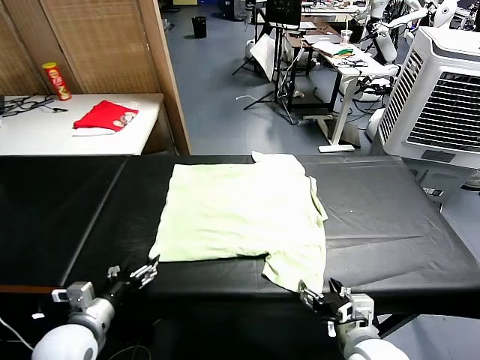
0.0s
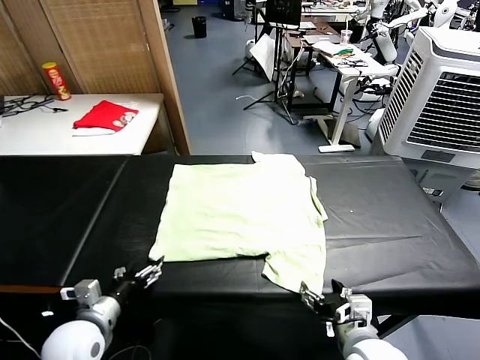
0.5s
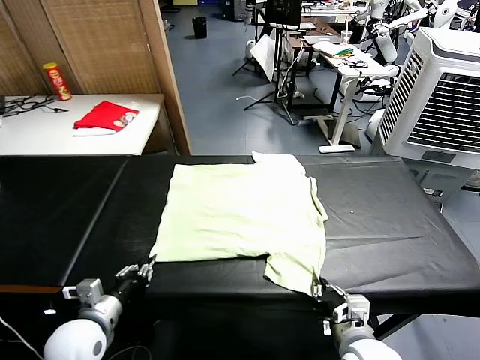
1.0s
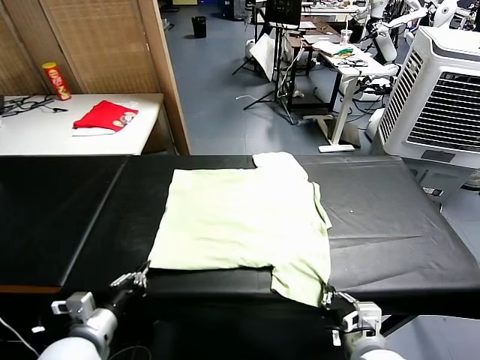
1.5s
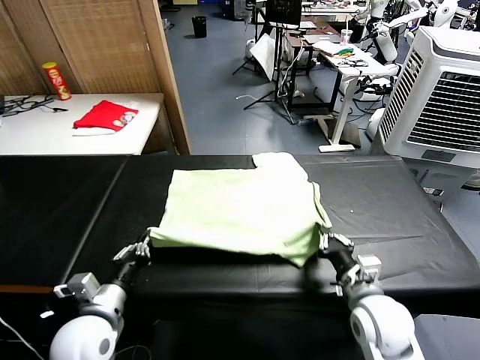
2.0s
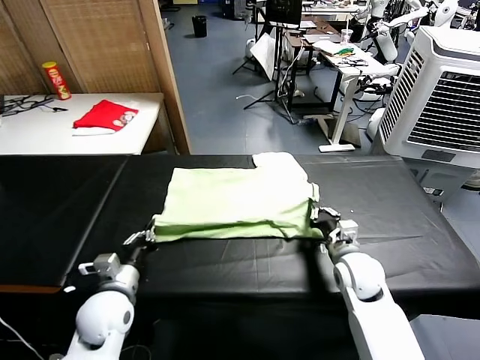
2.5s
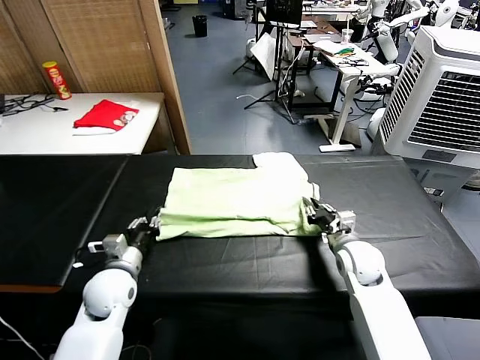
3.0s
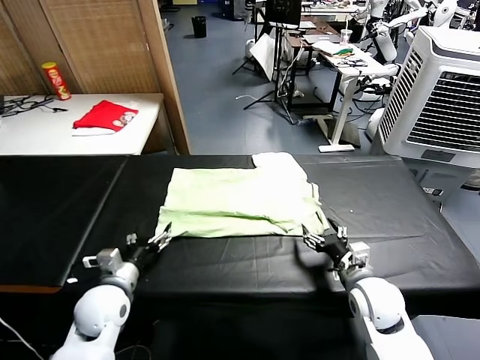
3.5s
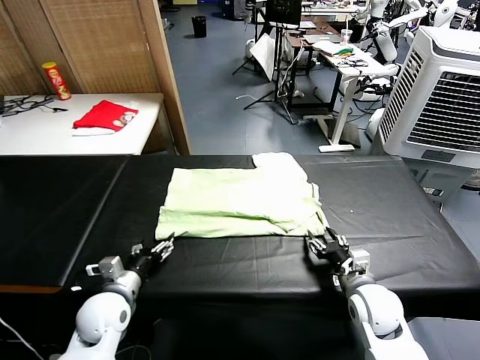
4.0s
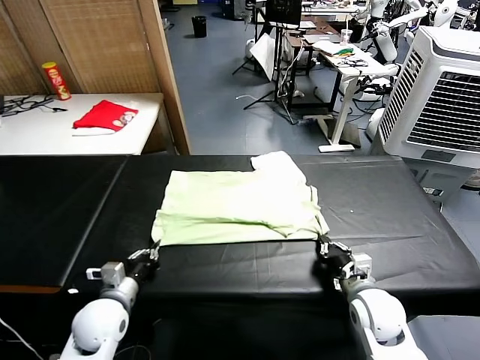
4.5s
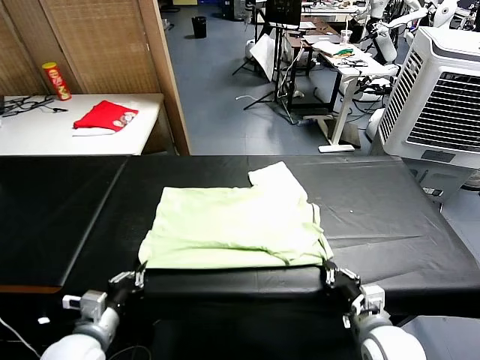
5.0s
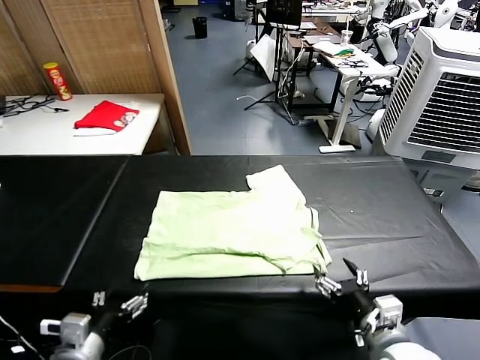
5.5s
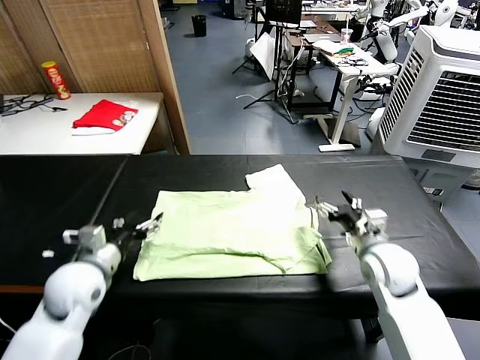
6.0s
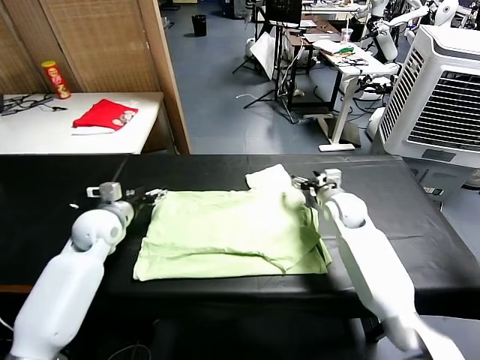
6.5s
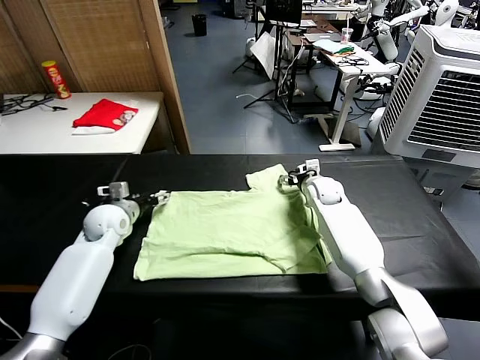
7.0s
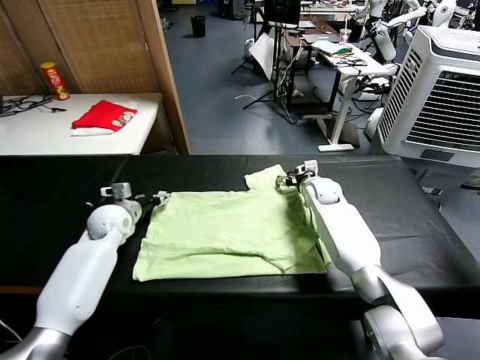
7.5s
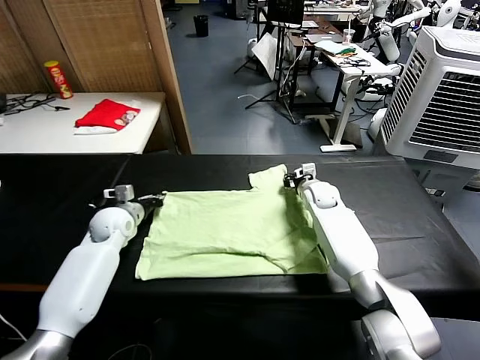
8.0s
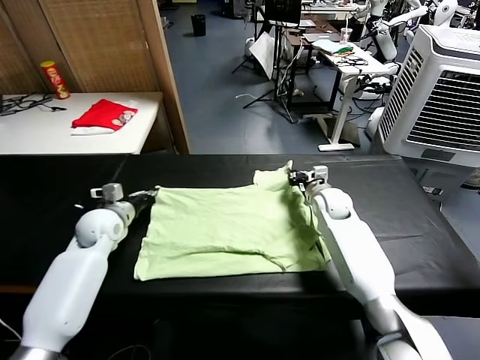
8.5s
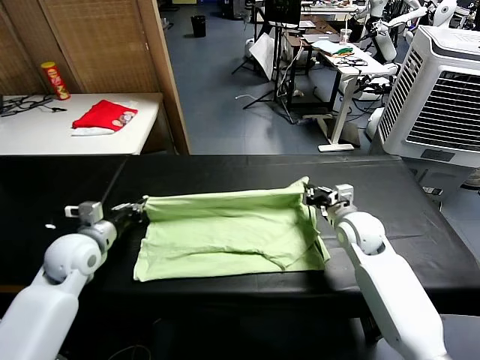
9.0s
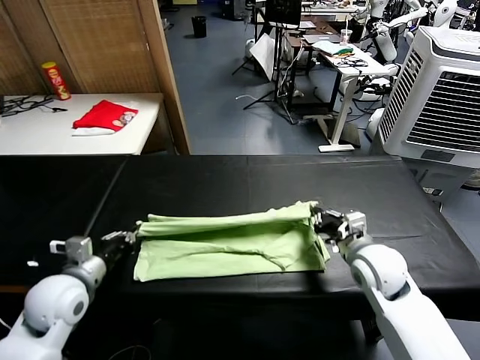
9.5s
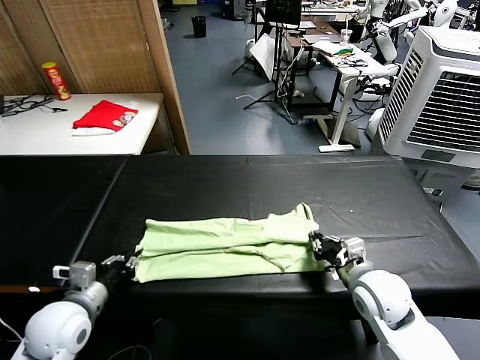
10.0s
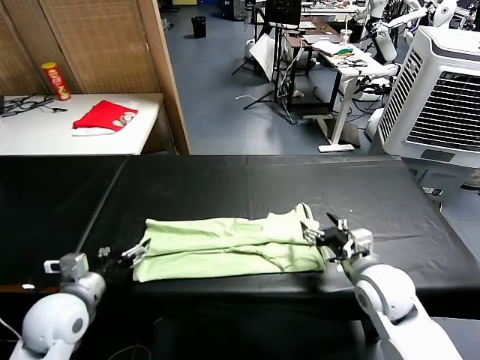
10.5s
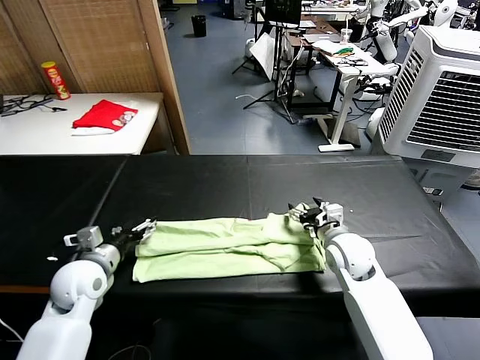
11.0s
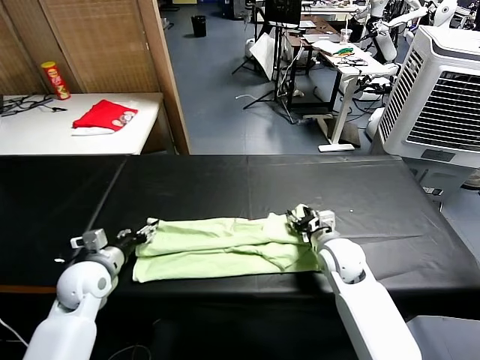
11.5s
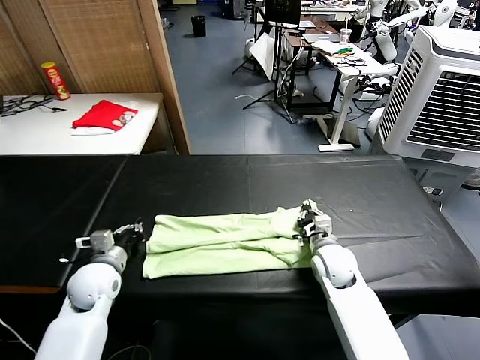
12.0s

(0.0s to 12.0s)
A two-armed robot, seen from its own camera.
Task of the whole recording: fold and organize the clothes.
Step, 0.0s - 1.0s: use both grippers simultaneously to clamp the lower edge of the clothing fabric.
Step, 1.5s - 3.0s: use both grippers to drag the lower edge of the fabric forward and fold it over the upper edge.
Step, 3.5s - 5.5s: Drag the clothes downward with both gripper.
Step, 6.0s - 7.5s: use both grippers simultaneously to clamp the upper edge of the clothing fabric.
Step, 8.0s - 10.0s: use both grippers to drag the upper edge of the fabric backward and fold it over the lower edge.
2.0s - 4.0s: The left gripper heads downward and forward, covering approximately 10 cm, and opens its fingers. Meanwhile the right gripper travels forward and back again, roughly 10 cm each way, and opens and closes again.
4.0s - 6.0s: The left gripper heads upward, covering approximately 10 cm, moves about 15 cm backward and comes back, and closes and opens again. The right gripper travels forward and upward by about 15 cm, and opens up.
6.0s - 8.0s: The left gripper moves forward, roughly 15 cm, and closes its fingers, while the right gripper heads forward and downward, covering about 15 cm, and closes up.
8.0s - 10.0s: Both grippers travel together backward, about 25 cm. The right gripper opens its fingers.
10.0s - 12.0s: The left gripper goes about 10 cm forward, and opens, then closes again; the right gripper is displaced forward, downward and to the left by roughly 15 cm, and closes.

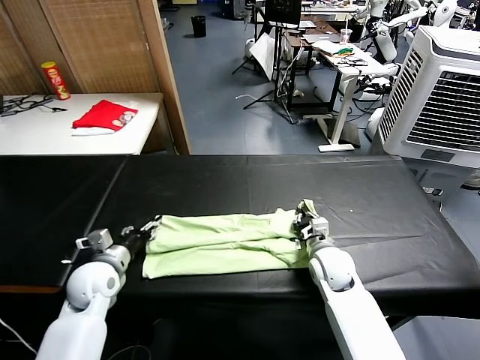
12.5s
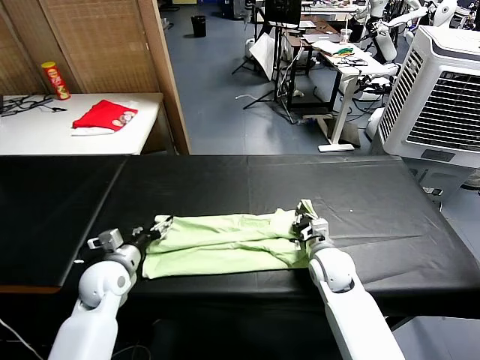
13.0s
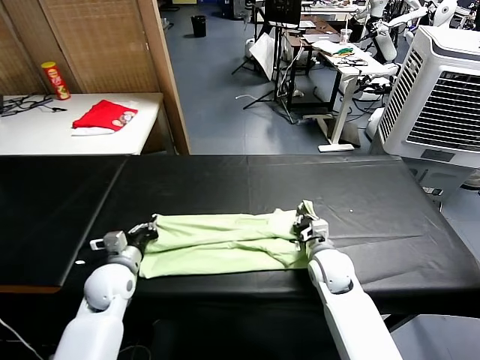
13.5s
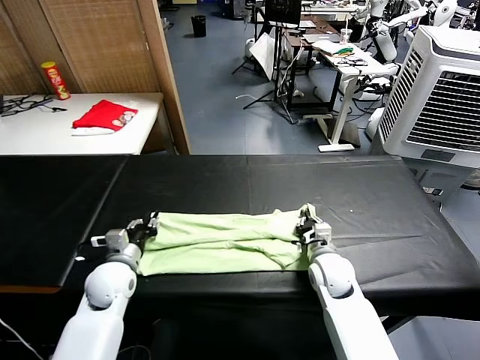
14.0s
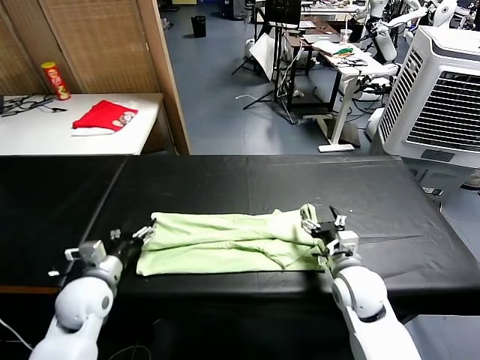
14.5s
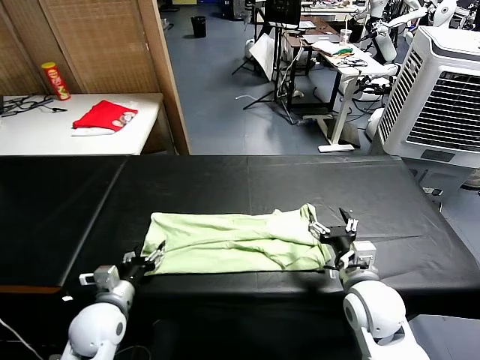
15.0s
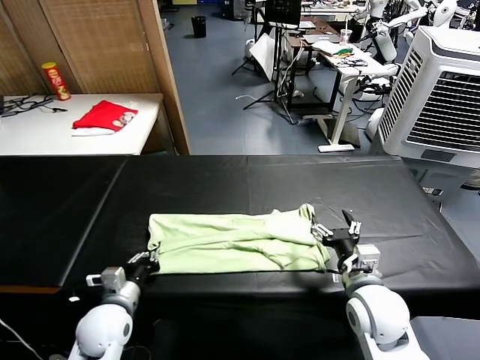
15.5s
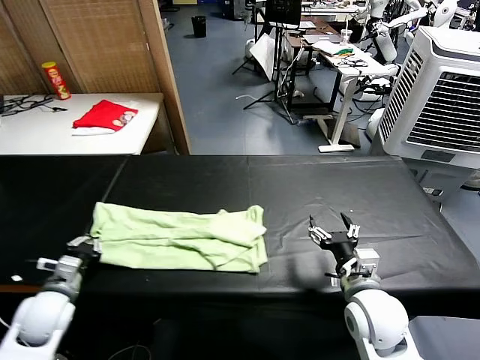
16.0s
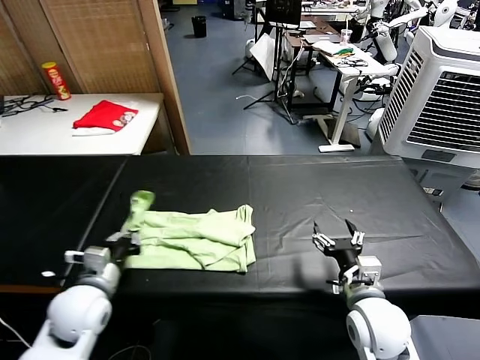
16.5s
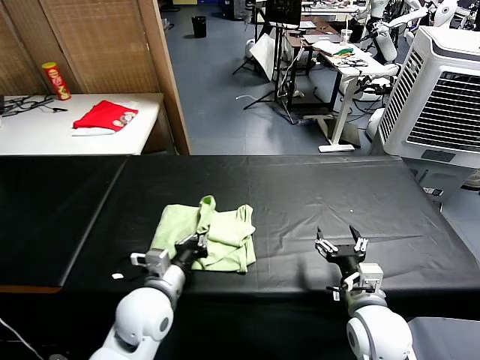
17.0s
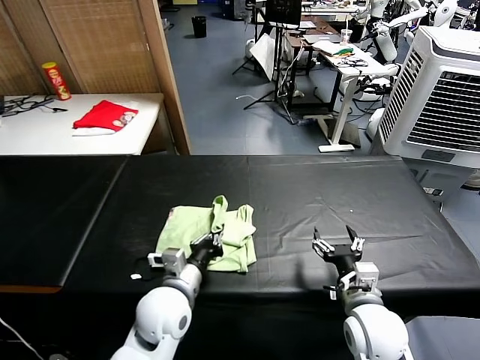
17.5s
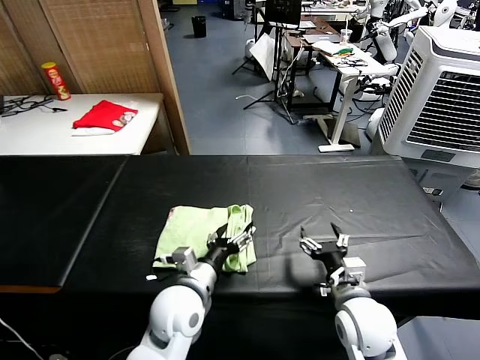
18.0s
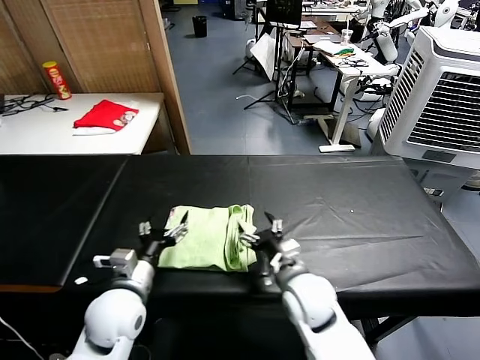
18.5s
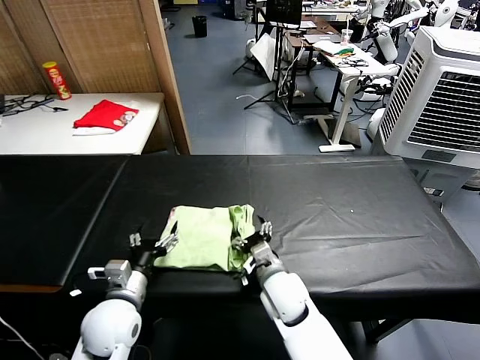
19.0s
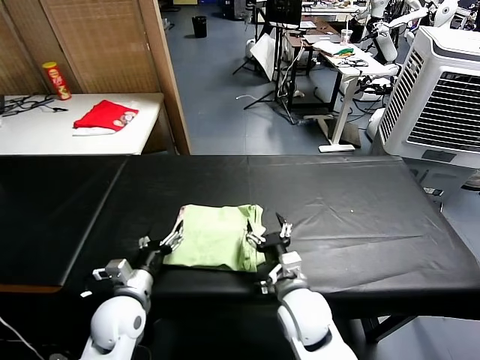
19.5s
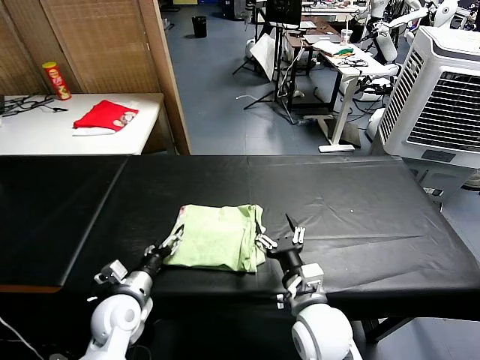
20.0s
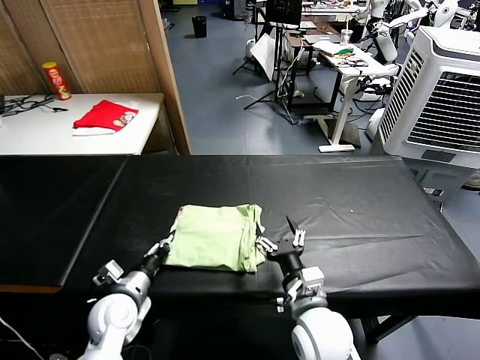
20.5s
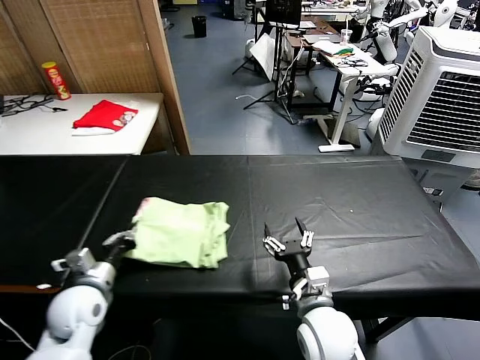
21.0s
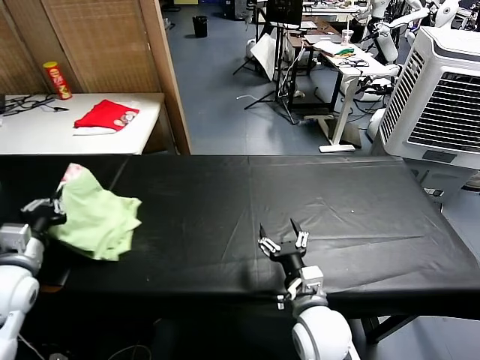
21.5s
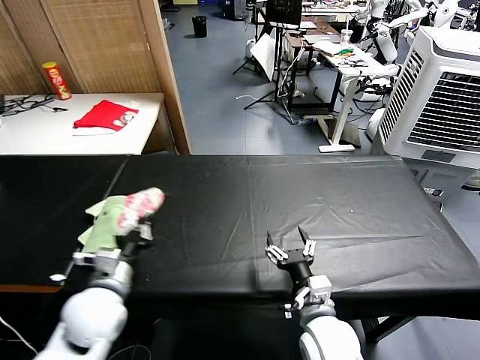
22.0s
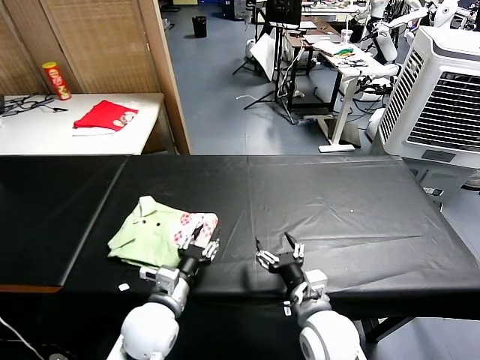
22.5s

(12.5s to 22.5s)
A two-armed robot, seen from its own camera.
Task of the whole recording: fold and organize the clothes.
Step, 12.5s - 15.0s: use the left gripper to clamp the left edge of the fabric.
Step, 16.0s - 17.5s: use the left gripper to drag the left edge of the fabric to the left and folds it over the right edge.
Step, 18.5s - 22.5s: Flip the folded clothes over with left gripper.
12.5s - 14.5s: The left gripper closes, then reopens. The right gripper travels backward and upward by approximately 10 cm, and opens up.
14.5s - 16.5s: The left gripper goes left and right, about 10 cm each way, reversing 2 times, and closes up. The right gripper goes some 5 cm backward.
16.5s - 18.5s: The left gripper goes some 10 cm to the right, and opens its fingers; the right gripper is displaced to the left and forward by roughly 15 cm.
18.5s - 20.5s: The right gripper shifts about 10 cm backward, while the left gripper moves downward, approximately 10 cm, and closes its fingers.
20.5s - 22.5s: The left gripper goes roughly 10 cm to the right, and opens its fingers.

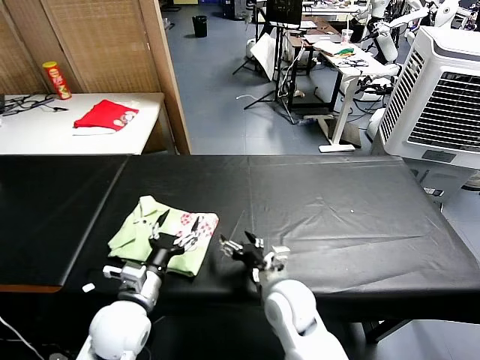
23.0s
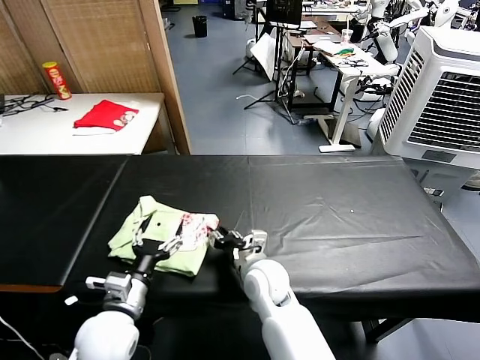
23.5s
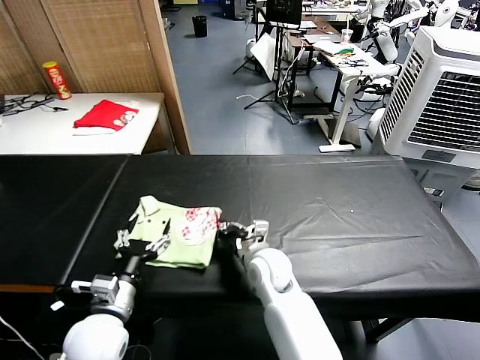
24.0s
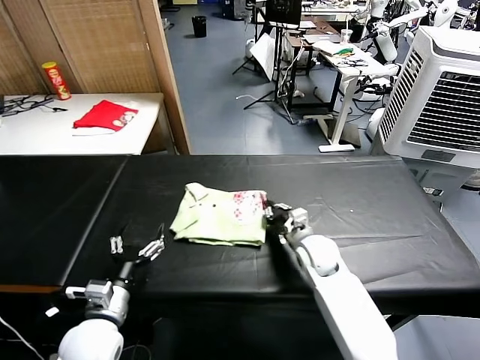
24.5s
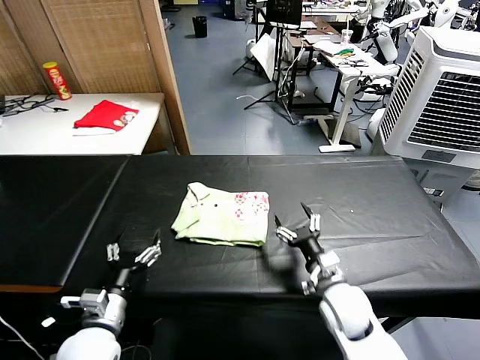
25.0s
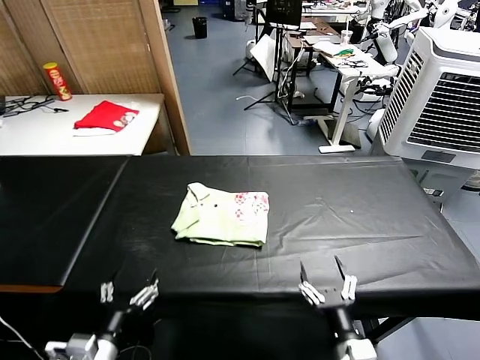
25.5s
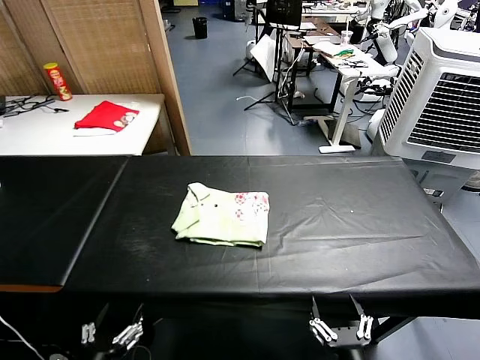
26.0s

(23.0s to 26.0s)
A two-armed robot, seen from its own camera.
Task of the whole recording: fold and organize the clothes.
Step, 23.0s - 24.5s: Drag the clothes to the center of the table.
23.0s - 24.5s: The right gripper heads forward and to the right, covering roughly 15 cm, and closes up, while the left gripper moves to the left, roughly 5 cm.
24.5s - 26.0s: The right gripper moves backward, some 35 cm, and opens. Meanwhile the left gripper is displaced backward by approximately 15 cm.
